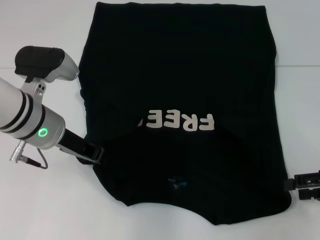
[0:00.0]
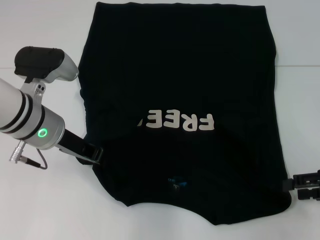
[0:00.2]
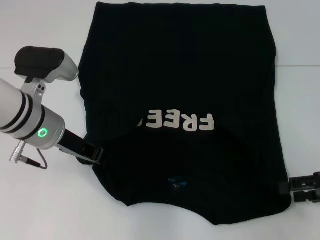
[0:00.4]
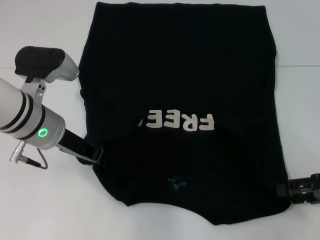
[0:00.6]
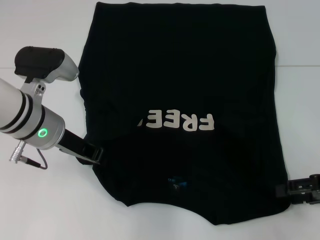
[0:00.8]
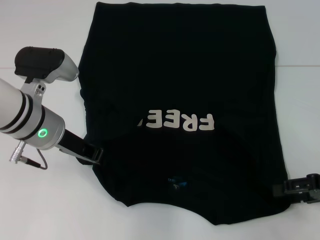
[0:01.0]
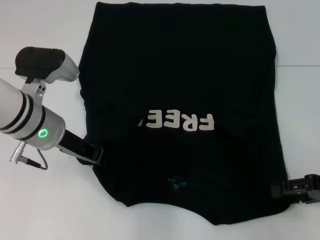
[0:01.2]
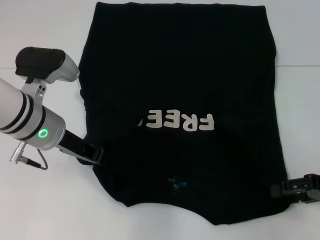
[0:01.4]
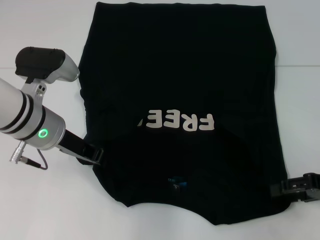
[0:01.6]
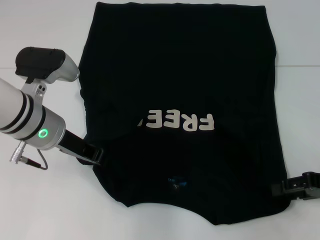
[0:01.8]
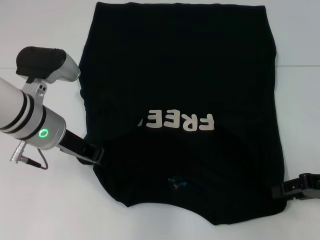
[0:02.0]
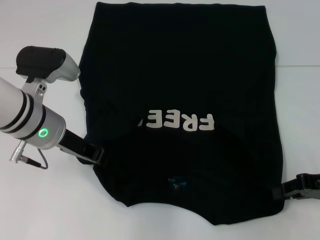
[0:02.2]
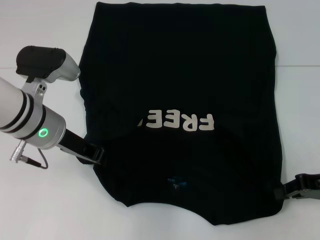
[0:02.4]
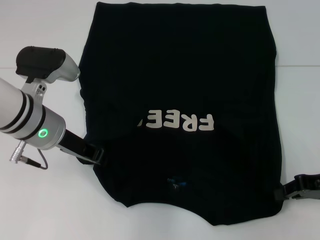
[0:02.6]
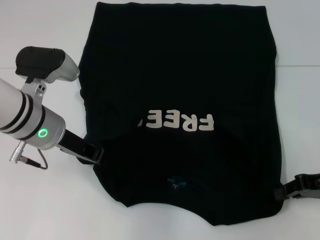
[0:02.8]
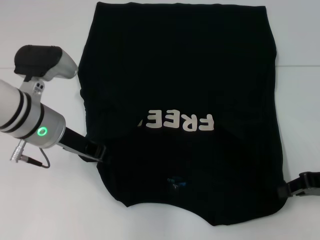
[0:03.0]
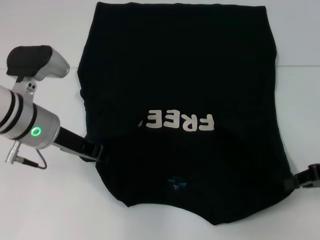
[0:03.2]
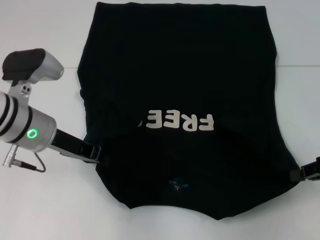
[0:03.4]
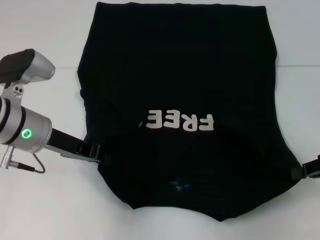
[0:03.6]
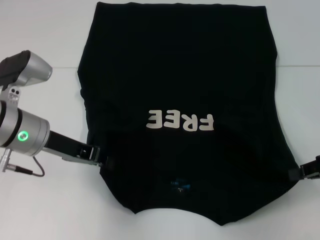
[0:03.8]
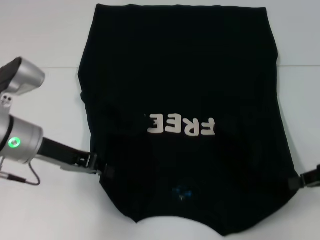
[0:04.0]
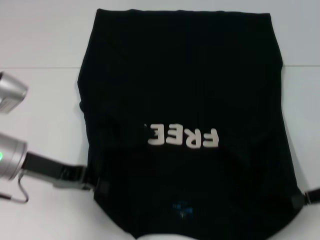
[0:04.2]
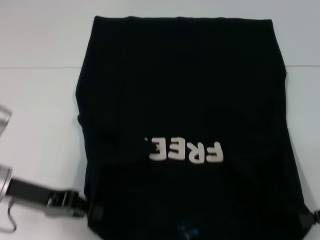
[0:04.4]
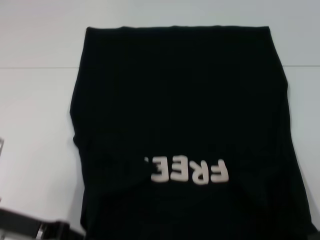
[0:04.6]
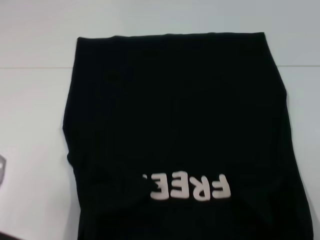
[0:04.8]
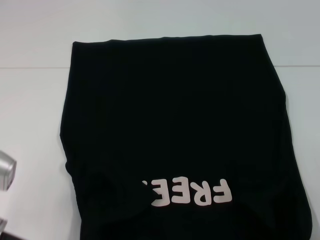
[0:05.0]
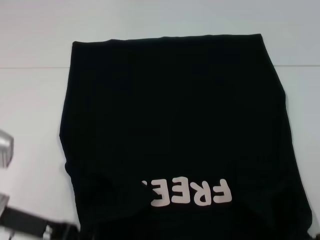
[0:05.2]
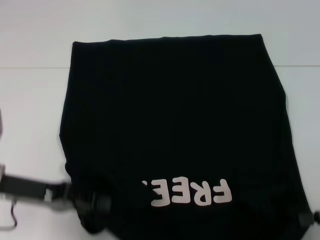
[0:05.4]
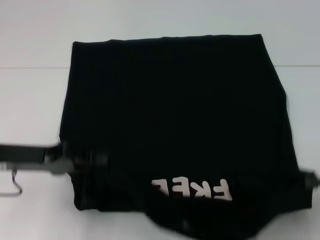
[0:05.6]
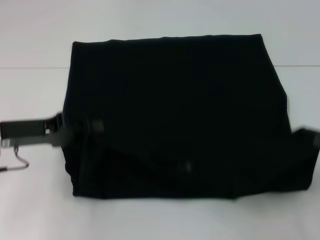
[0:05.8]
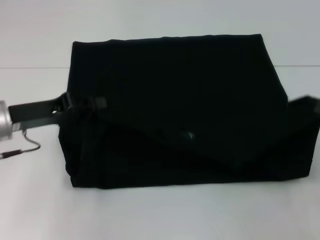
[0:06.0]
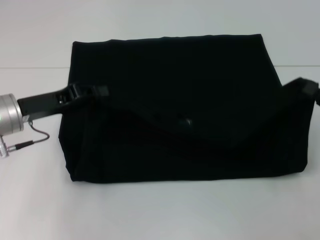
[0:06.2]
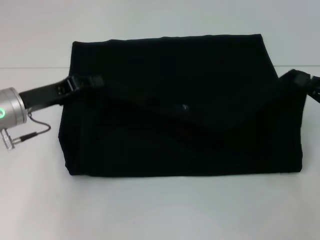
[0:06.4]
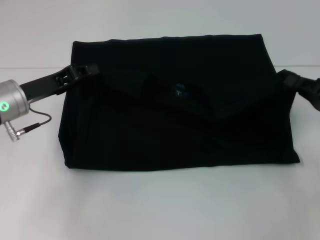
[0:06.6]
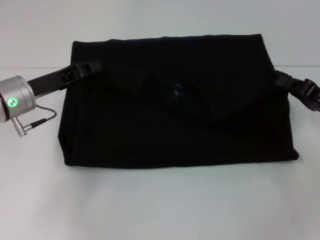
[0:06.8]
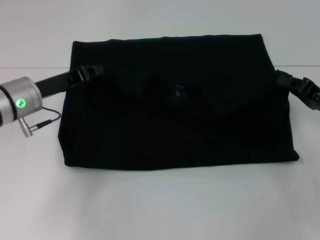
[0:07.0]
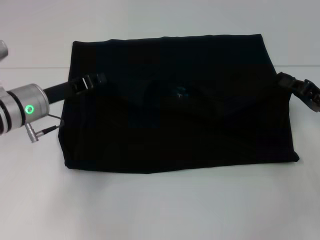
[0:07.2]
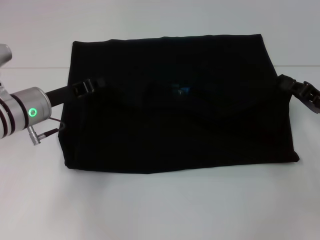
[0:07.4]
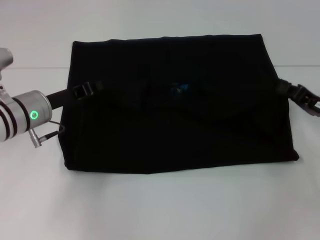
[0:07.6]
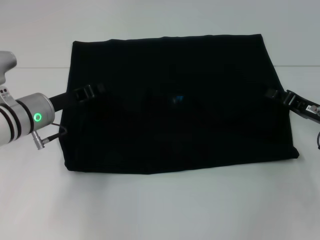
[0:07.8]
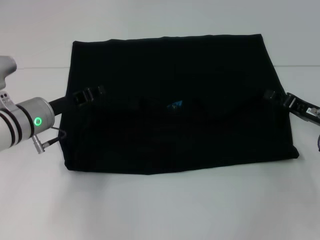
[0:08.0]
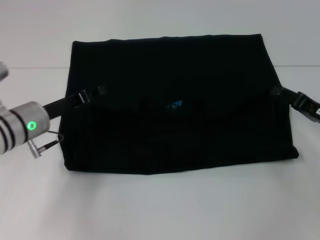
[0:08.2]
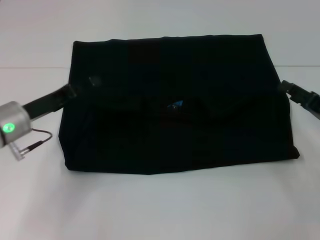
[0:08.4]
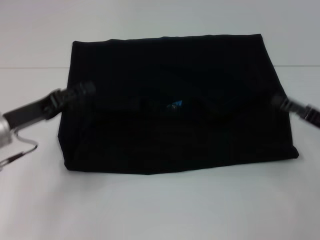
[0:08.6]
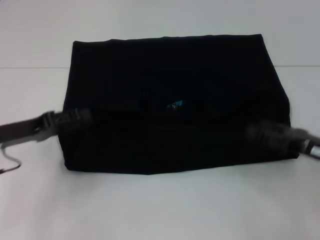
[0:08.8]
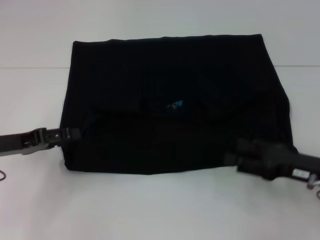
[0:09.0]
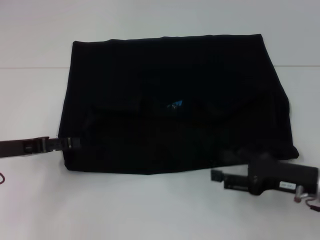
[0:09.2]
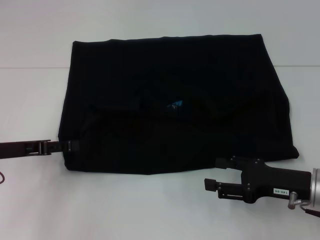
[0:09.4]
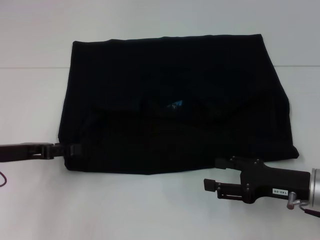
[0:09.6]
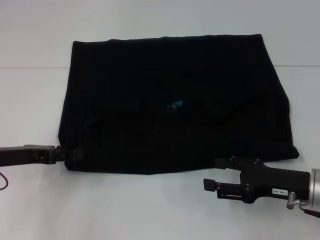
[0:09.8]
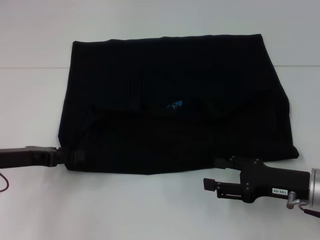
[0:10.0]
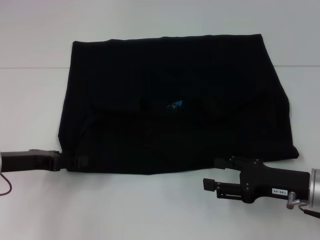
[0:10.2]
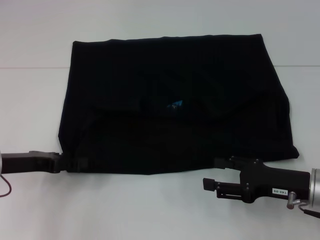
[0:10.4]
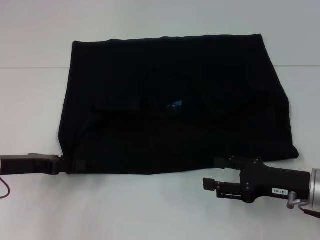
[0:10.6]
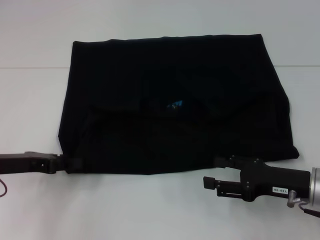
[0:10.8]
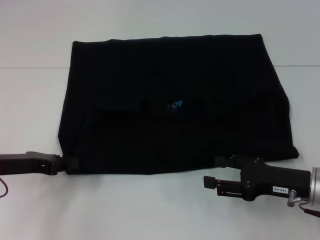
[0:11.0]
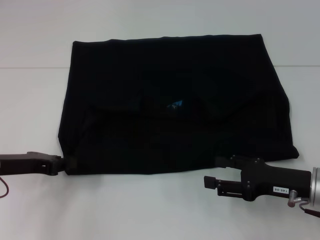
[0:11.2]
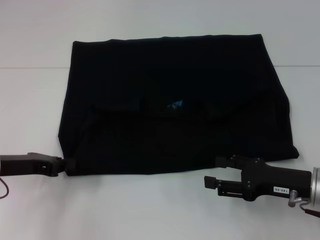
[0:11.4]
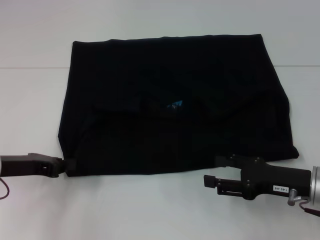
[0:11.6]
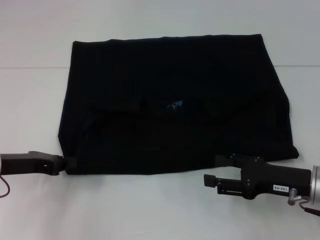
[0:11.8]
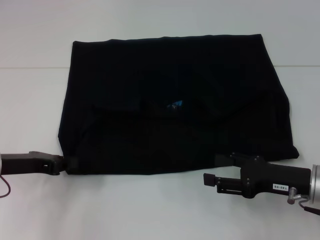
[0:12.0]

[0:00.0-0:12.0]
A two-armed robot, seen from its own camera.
Step, 0:00.0 to 0:03.0: Grab the bottom right corner with your right hand.
Step, 0:03.2 to 0:08.4: Fold the clothes with your left hand.
Step, 0:03.2 to 0:08.4: Fold the clothes with your right hand.
0:00.0 to 0:01.6: There are only small adjustments of the grippers.
0:01.6 to 0:03.0: The right gripper closes its fingers.
0:03.0 to 0:04.4: The left gripper shifts approximately 10 cm to the left and backward; the right gripper moves some 5 cm.
0:04.4 to 0:06.0: The left gripper moves about 5 cm.
0:06.0 to 0:07.6: The right gripper is displaced forward and to the left by about 10 cm. Meanwhile the left gripper moves roughly 5 cm.
0:07.6 to 0:09.0: The right gripper heads backward, covering about 5 cm, and opens. Meanwhile the left gripper travels to the left and backward by roughly 10 cm, and opens up.
0:10.4 to 0:12.0: The left gripper closes.

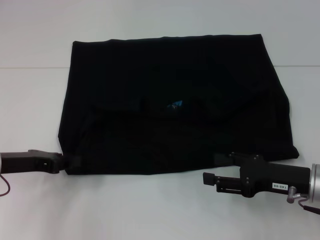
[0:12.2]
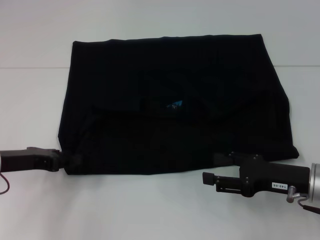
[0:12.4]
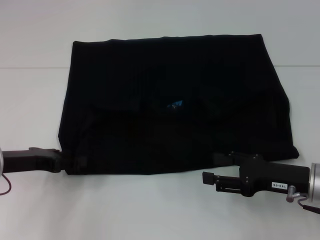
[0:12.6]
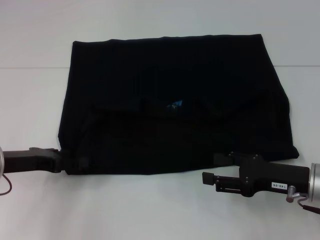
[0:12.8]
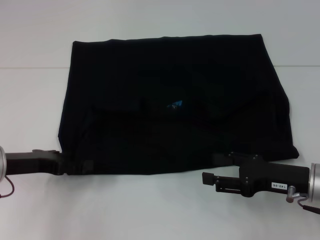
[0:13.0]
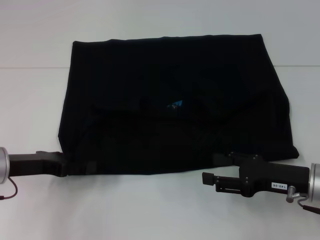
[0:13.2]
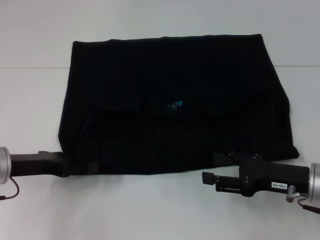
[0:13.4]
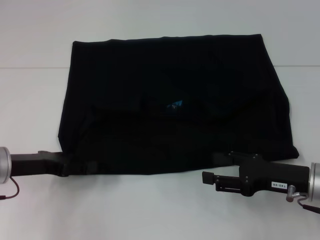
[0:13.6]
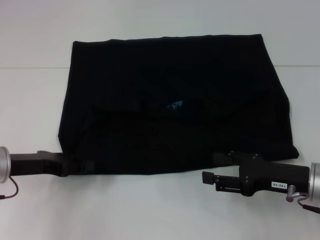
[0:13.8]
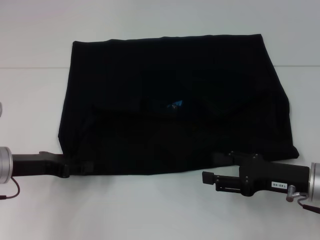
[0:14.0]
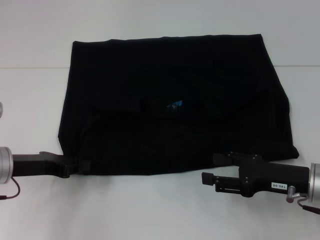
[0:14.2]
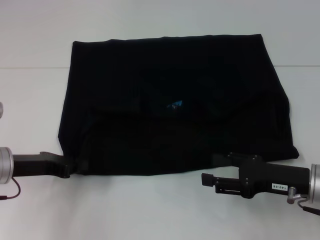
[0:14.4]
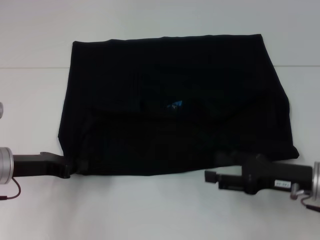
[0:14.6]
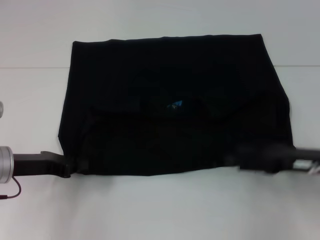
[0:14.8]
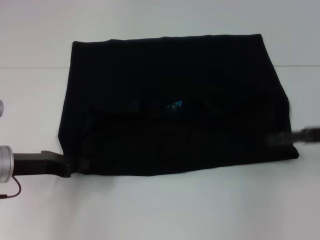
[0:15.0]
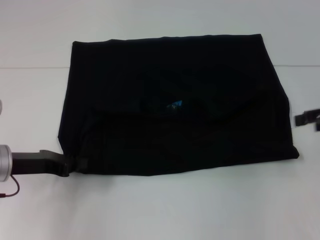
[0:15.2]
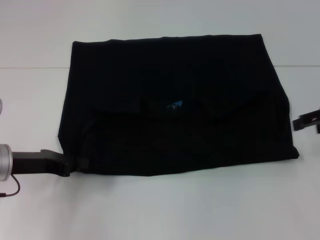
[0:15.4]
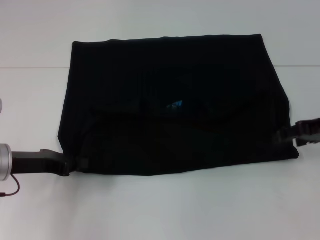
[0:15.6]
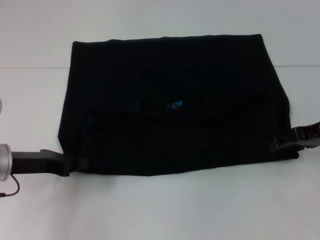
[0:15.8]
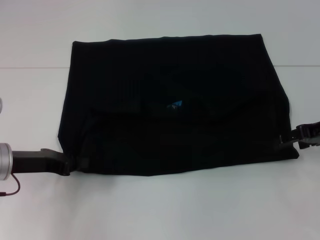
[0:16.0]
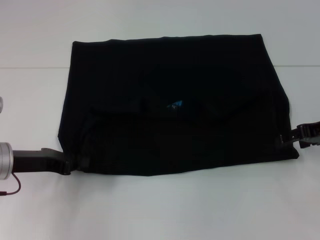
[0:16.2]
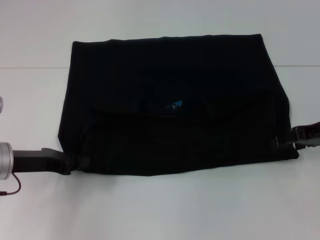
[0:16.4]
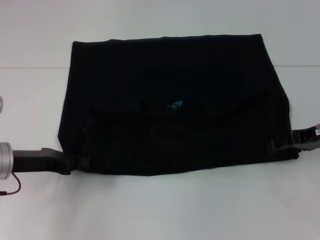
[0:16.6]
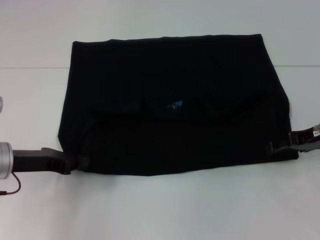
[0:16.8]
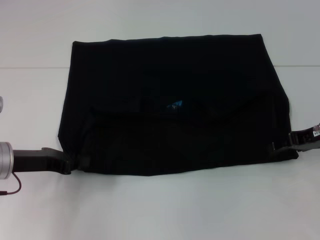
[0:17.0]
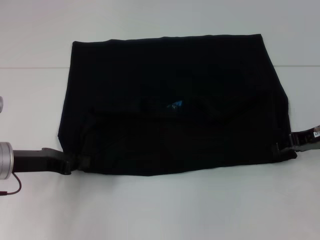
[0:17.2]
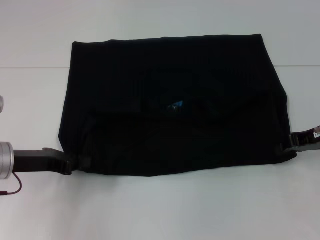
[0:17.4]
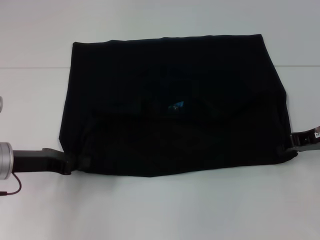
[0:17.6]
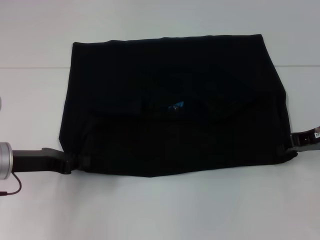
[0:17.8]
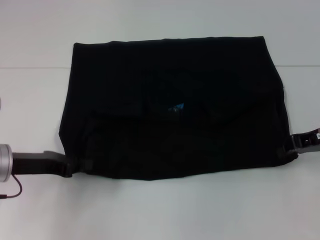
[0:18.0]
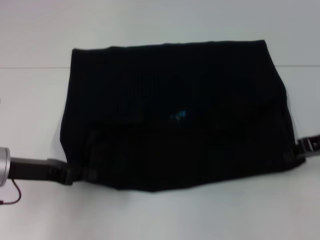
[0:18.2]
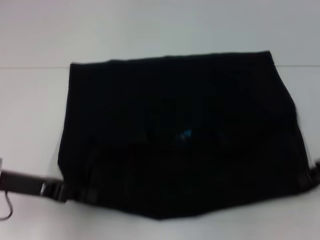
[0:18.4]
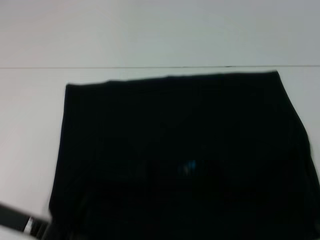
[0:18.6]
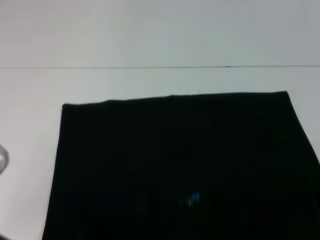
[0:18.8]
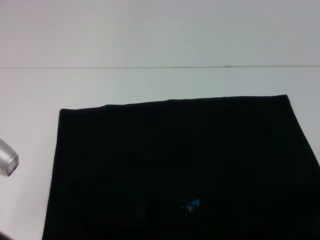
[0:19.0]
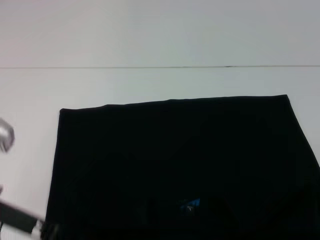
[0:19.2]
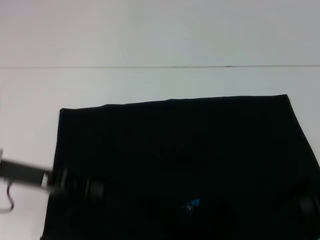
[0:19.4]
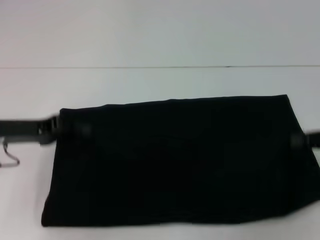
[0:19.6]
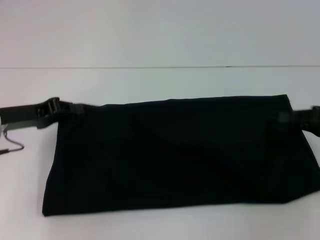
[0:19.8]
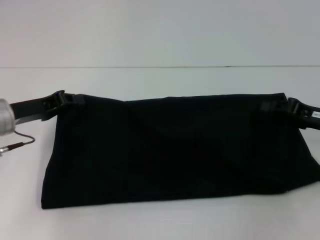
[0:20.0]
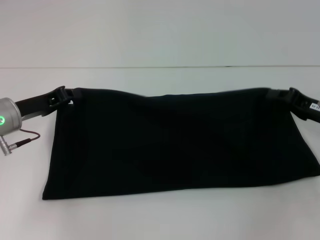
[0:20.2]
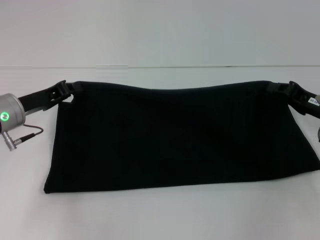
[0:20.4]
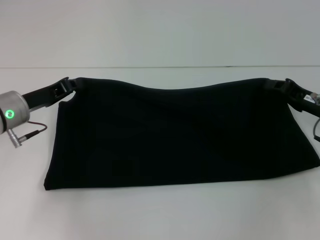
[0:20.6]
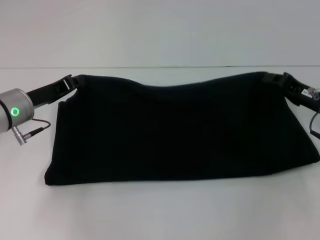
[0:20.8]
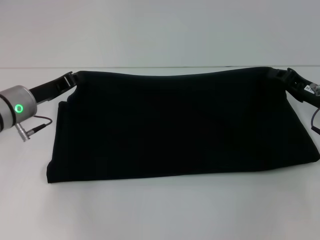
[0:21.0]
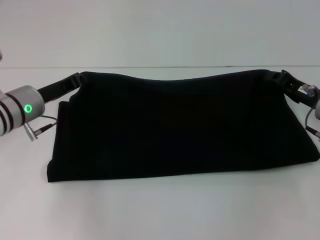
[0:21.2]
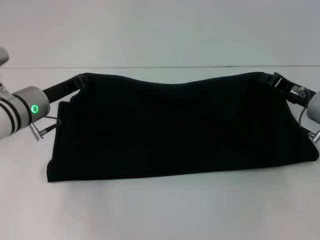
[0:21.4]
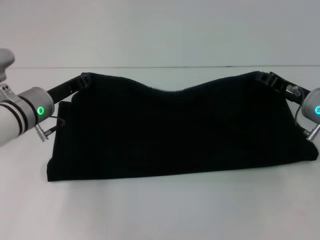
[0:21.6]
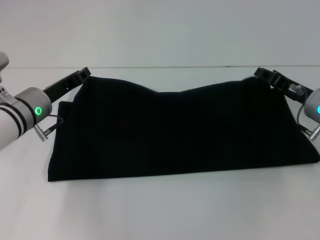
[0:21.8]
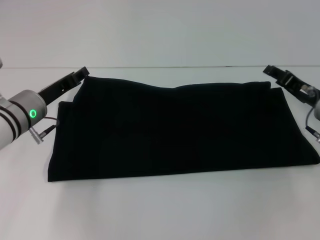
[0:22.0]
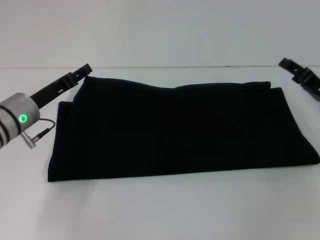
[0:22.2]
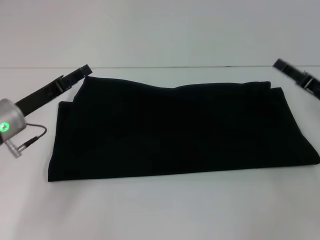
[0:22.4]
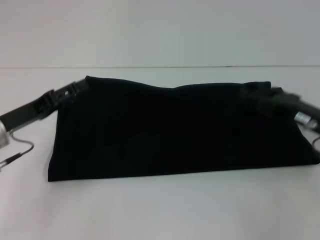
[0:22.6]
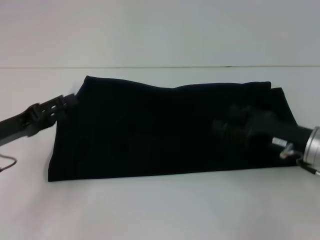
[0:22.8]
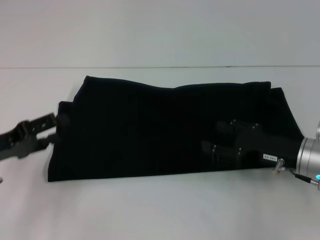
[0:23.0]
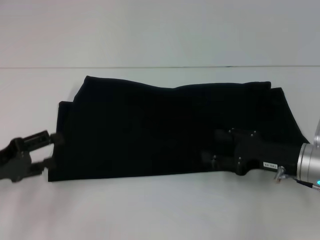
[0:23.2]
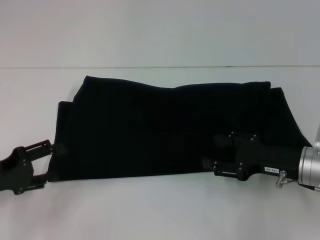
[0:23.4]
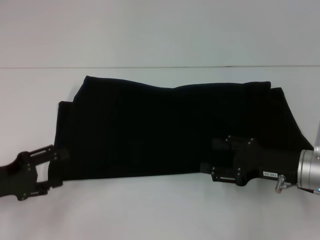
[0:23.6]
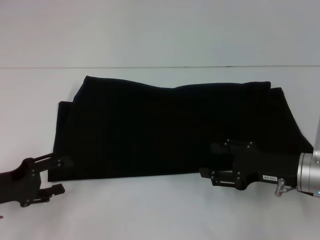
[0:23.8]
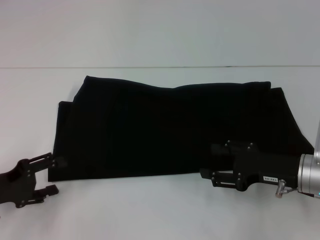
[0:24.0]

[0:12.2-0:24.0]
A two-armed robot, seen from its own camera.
Step, 0:12.2 to 0:19.0: Pull the clothes with your left hand.
Step, 0:12.2 to 0:19.0: Pull the clothes with your right hand.
Step, 0:19.2 to 0:22.0: Fold the clothes with your right hand.
0:12.2 to 0:13.6: The left gripper opens up.
0:13.6 to 0:15.2: The left gripper closes up. Meanwhile the right gripper goes approximately 20 cm upward, to the right and forward.
0:15.2 to 0:16.6: The right gripper is displaced downward by roughly 5 cm.
0:16.6 to 0:18.2: The right gripper closes its fingers.
0:18.2 to 0:19.6: The left gripper travels backward and back again, approximately 5 cm each way, while the right gripper ends up some 5 cm from where it was.
0:19.6 to 0:21.0: The left gripper is displaced forward by roughly 5 cm; the right gripper heads to the left, forward and downward, covering approximately 10 cm.
0:21.0 to 0:22.6: The left gripper heads backward, covering about 5 cm, and opens its fingers, while the right gripper opens.
0:22.6 to 0:24.0: The left gripper moves backward, some 5 cm. The right gripper shifts by some 5 cm.
